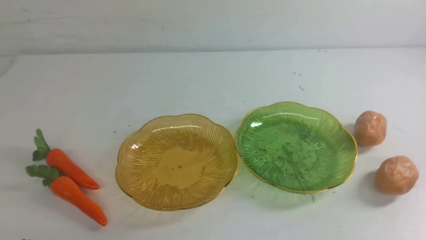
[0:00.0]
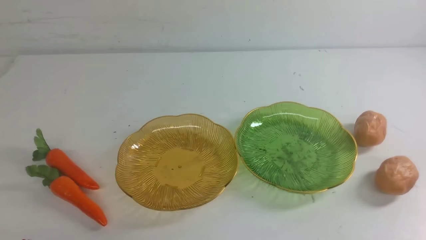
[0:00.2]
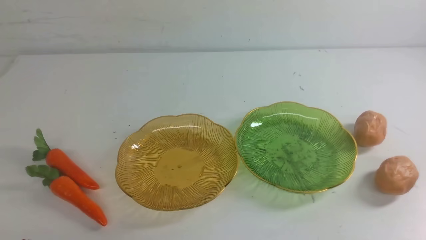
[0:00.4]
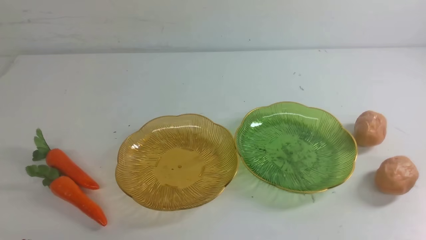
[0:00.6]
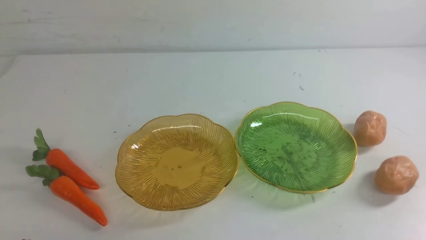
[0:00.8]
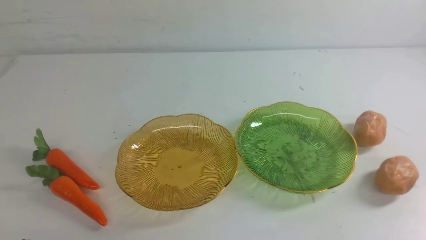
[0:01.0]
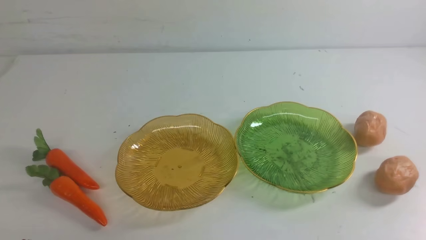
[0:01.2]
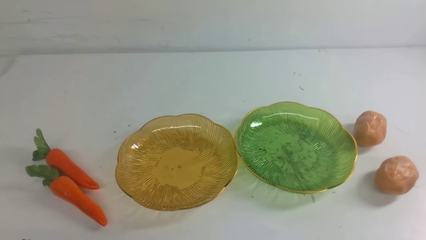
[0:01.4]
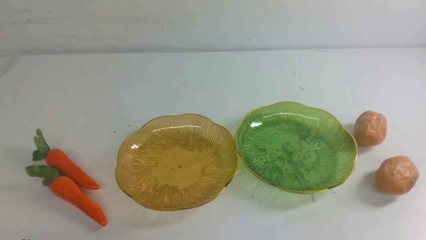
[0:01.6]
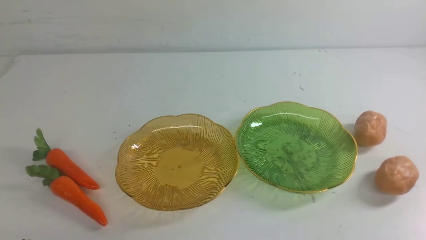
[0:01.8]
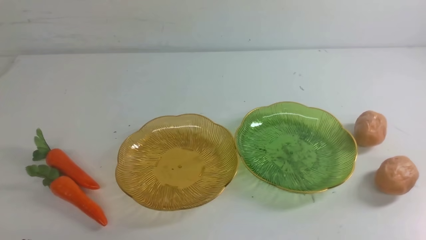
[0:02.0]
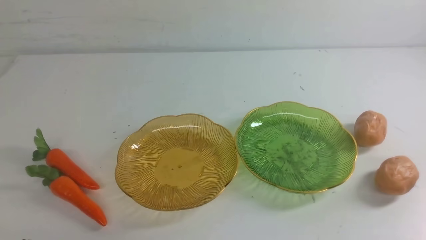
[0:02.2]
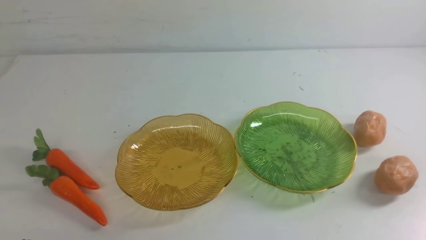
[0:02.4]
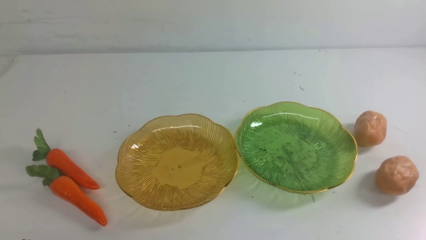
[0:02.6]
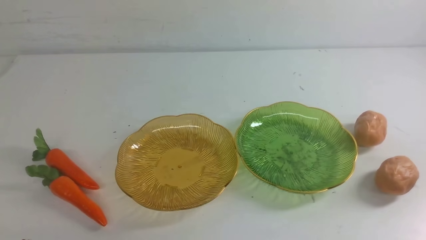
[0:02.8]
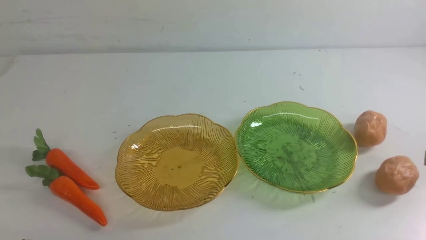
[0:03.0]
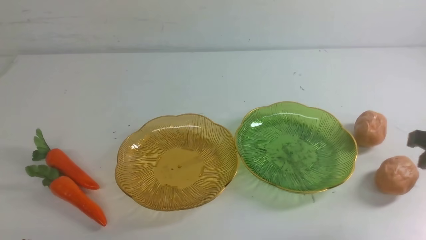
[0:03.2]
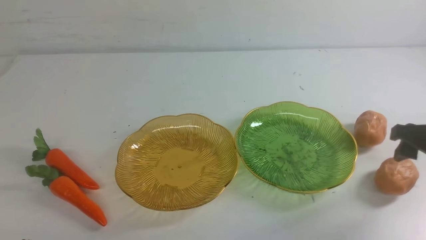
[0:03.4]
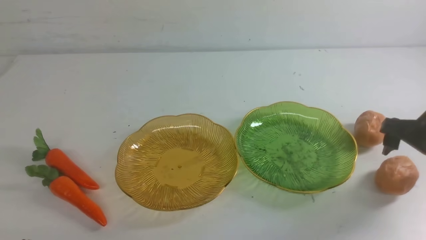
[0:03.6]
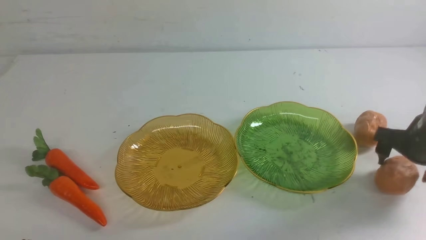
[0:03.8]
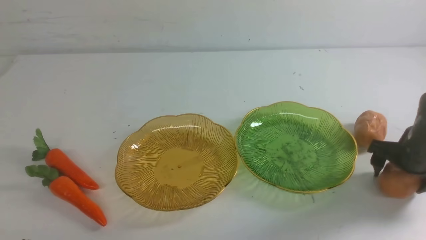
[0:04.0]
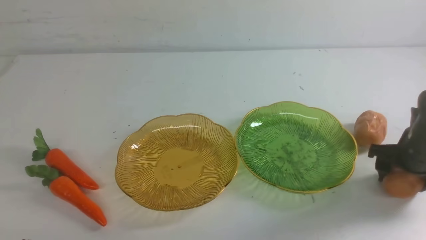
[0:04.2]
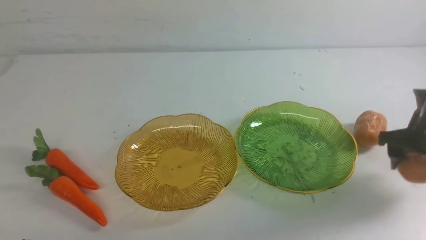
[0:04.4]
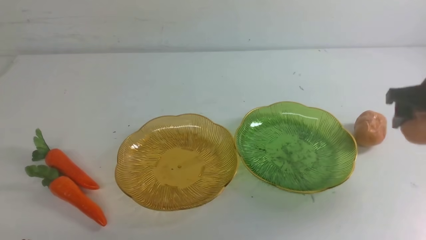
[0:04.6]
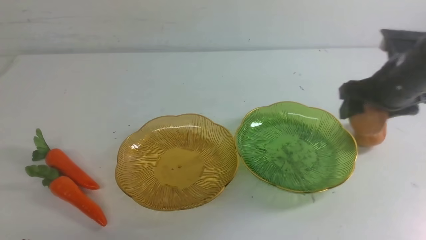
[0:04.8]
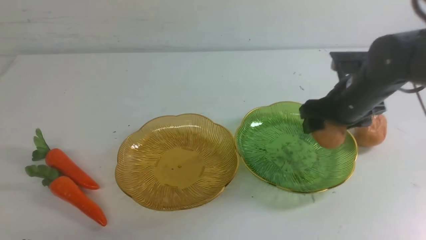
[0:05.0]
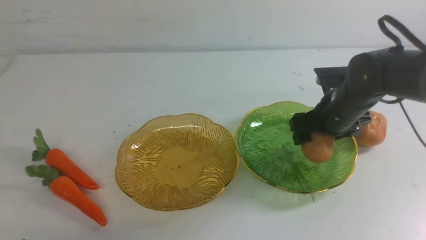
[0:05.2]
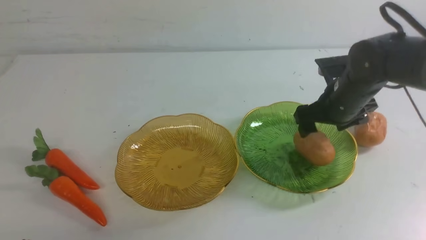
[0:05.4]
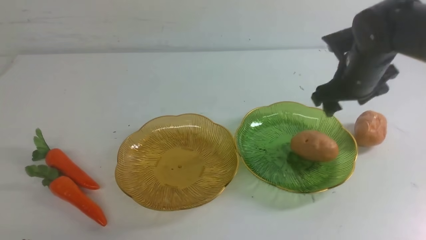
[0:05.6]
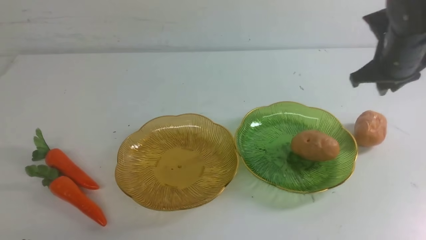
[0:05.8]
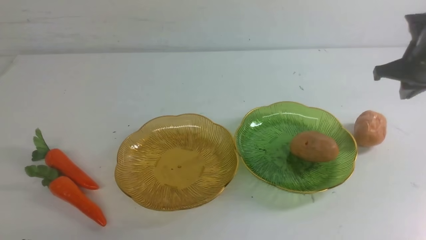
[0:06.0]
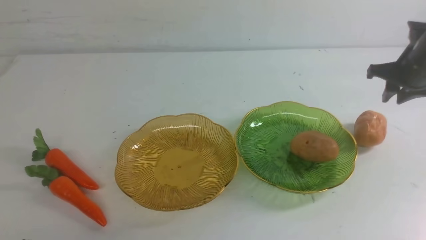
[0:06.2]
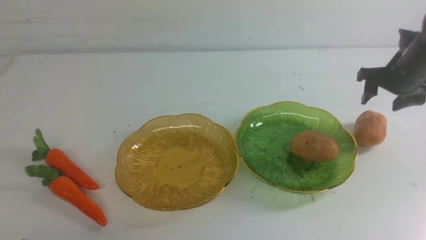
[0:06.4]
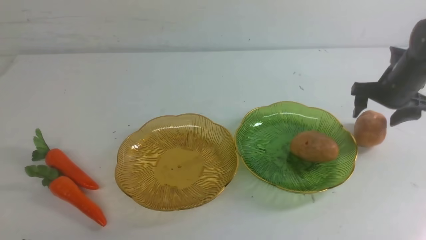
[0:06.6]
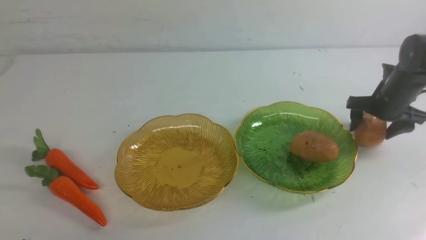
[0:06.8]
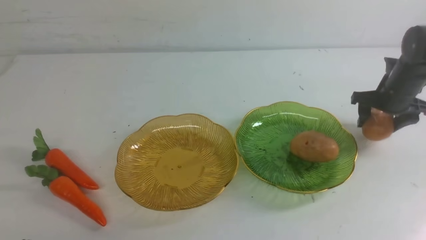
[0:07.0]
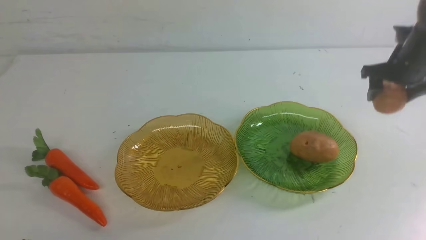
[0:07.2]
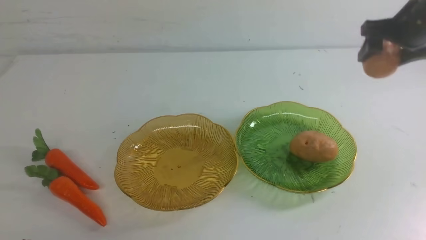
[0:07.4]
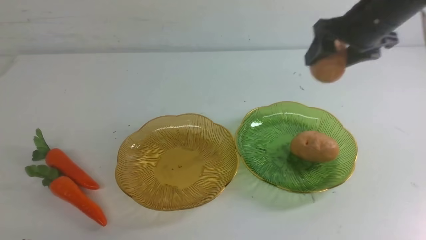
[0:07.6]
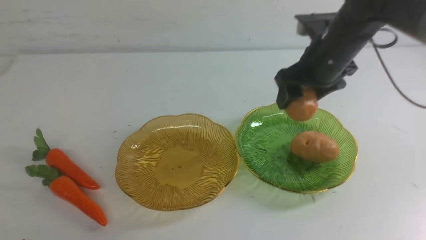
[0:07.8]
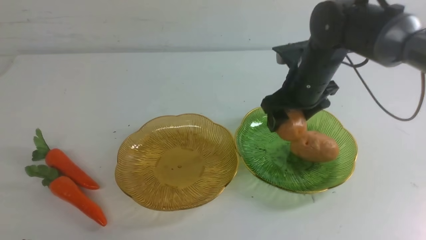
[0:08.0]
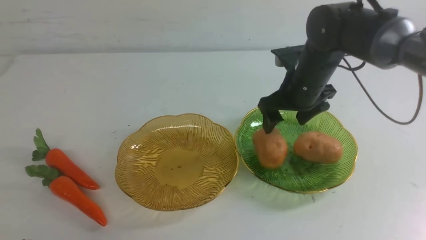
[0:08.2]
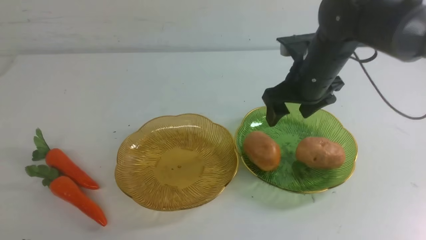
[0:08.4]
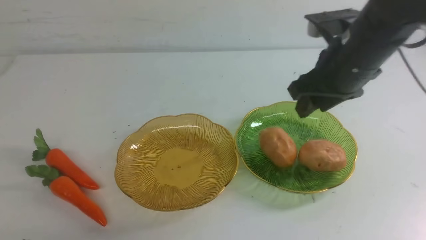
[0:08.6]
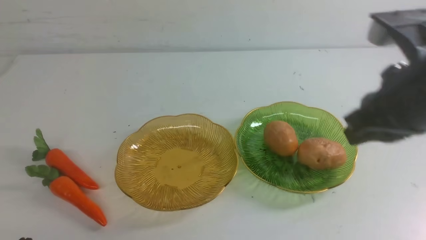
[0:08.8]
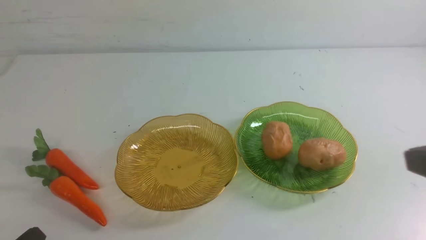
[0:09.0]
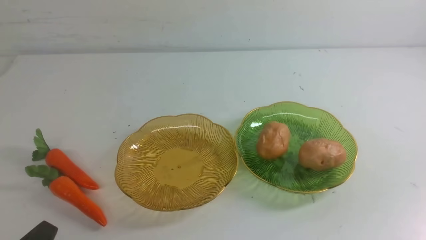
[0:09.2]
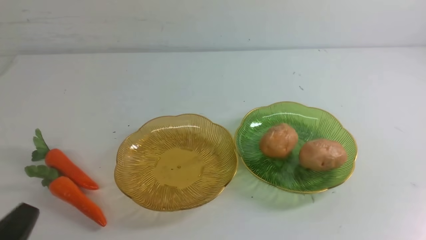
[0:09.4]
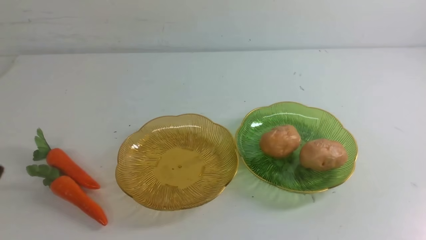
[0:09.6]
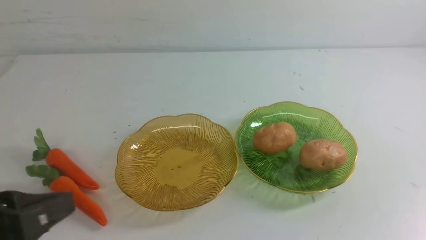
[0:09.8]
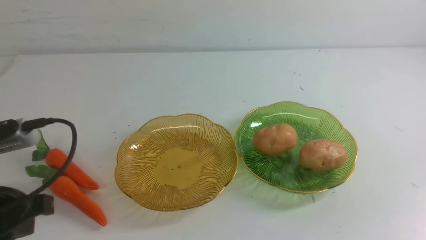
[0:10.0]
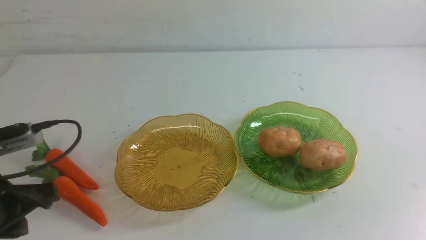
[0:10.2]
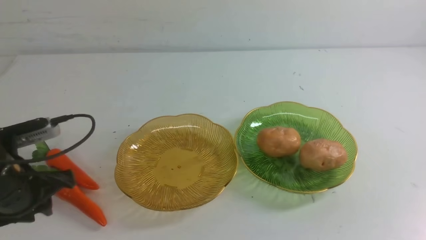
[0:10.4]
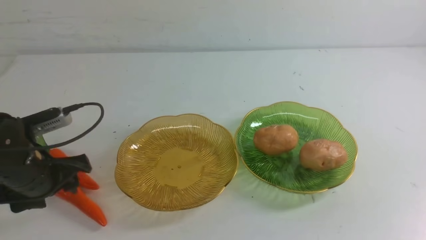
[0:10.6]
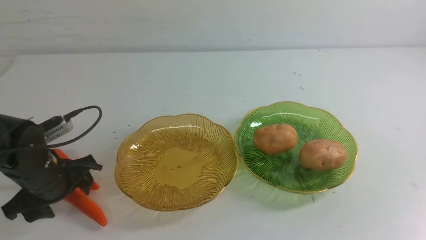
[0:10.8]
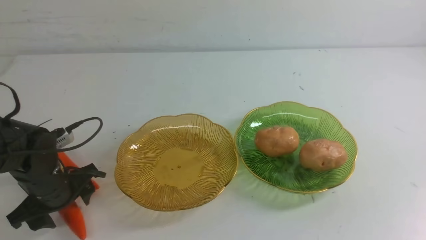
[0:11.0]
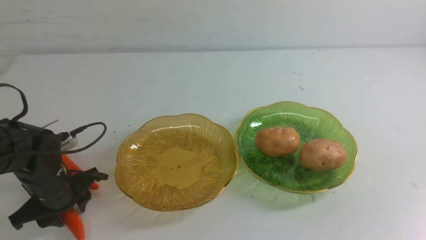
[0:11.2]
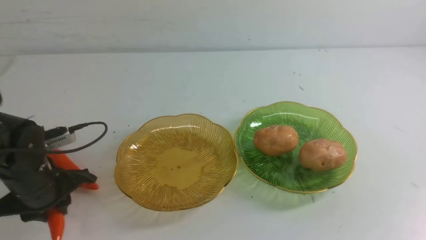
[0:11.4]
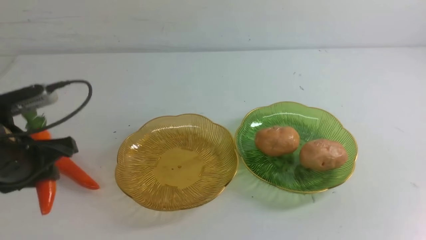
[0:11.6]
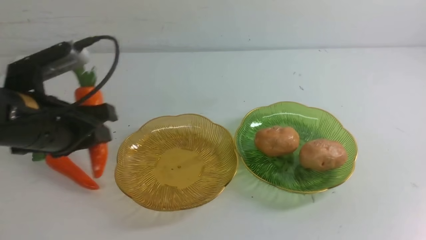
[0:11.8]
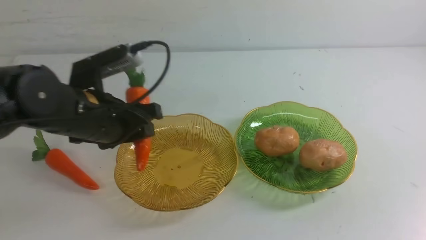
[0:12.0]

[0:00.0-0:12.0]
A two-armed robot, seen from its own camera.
Step, 0:00.0 to 0:05.2: Grab a potato with your right arm and put it on the right plate.
Step, 0:05.6 to 0:08.2: Grab a potato with your right arm and put it on the right plate.
0:03.0 to 0:04.4: The right gripper goes approximately 15 cm forward, and opens its fingers.
0:04.4 to 0:06.0: The right gripper shifts approximately 10 cm forward, goes to the left and returns, about 10 cm each way, and closes, then opens again.
0:06.0 to 0:07.6: The right gripper travels to the left by roughly 15 cm.
0:07.6 to 0:09.0: The right gripper heads backward, covering approximately 30 cm, and closes up.
0:09.0 to 0:10.4: The left gripper heads forward, covering approximately 15 cm, and opens; the right gripper moves approximately 5 cm.
0:10.4 to 0:12.0: The left gripper moves to the right and forward, about 10 cm, travels downward and back again, approximately 10 cm each way, and opens and closes again.

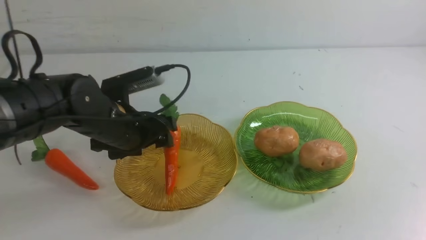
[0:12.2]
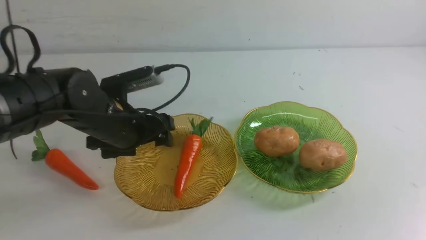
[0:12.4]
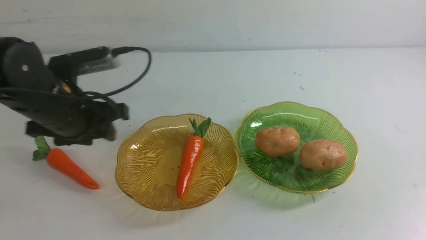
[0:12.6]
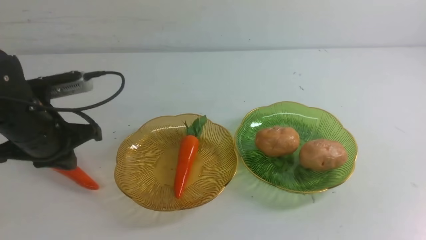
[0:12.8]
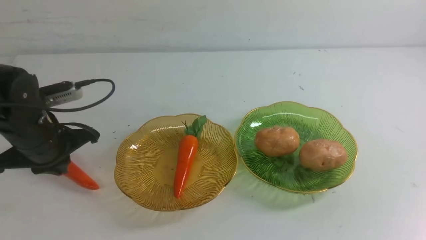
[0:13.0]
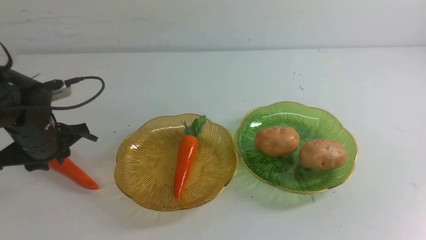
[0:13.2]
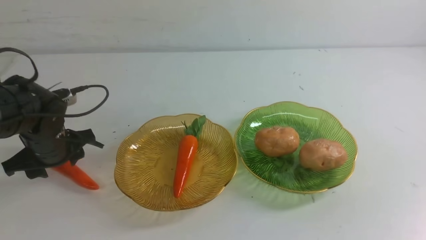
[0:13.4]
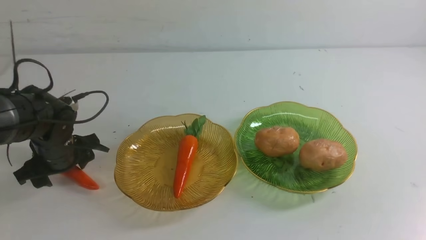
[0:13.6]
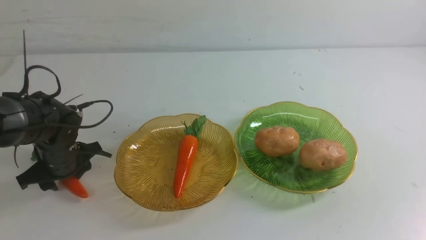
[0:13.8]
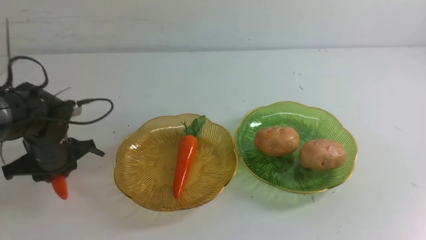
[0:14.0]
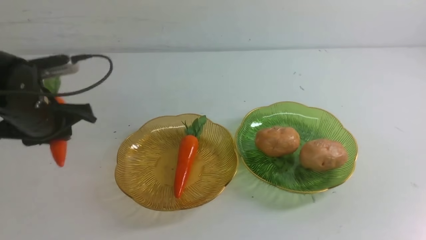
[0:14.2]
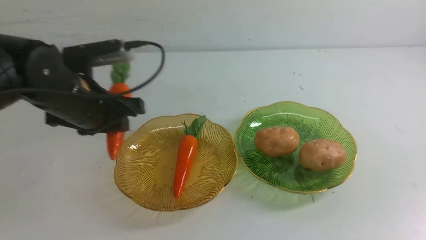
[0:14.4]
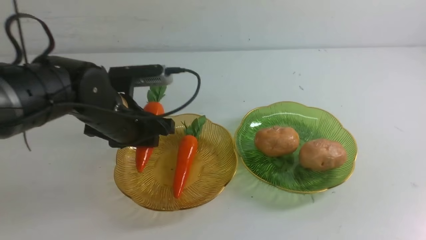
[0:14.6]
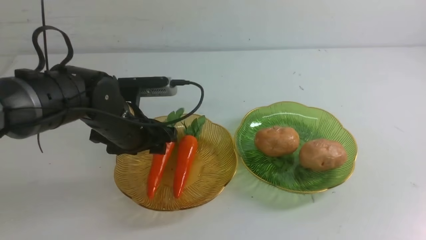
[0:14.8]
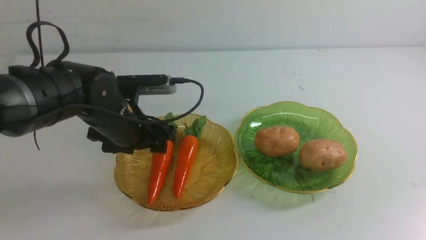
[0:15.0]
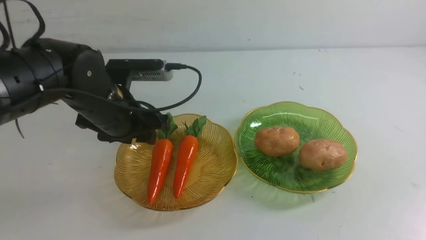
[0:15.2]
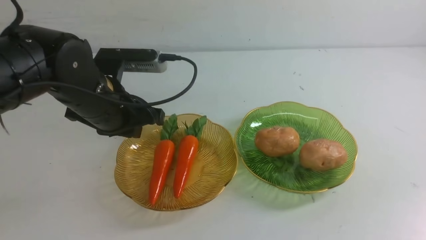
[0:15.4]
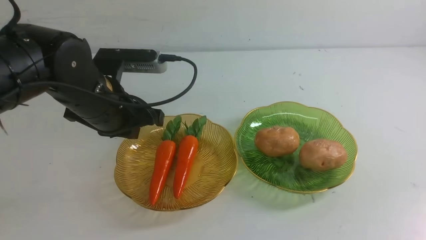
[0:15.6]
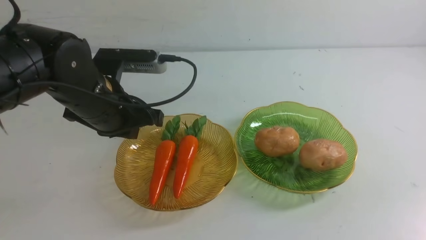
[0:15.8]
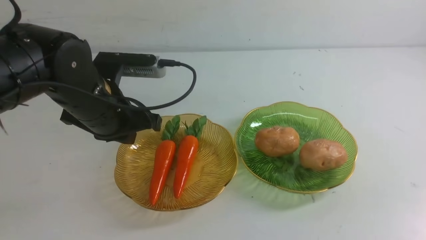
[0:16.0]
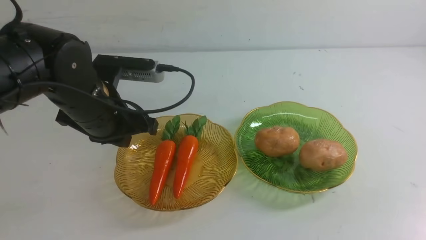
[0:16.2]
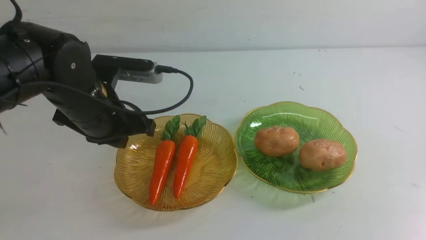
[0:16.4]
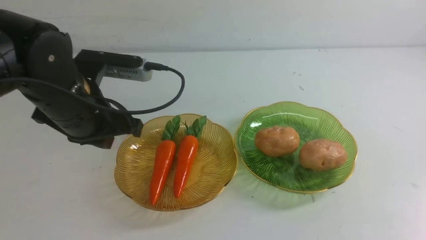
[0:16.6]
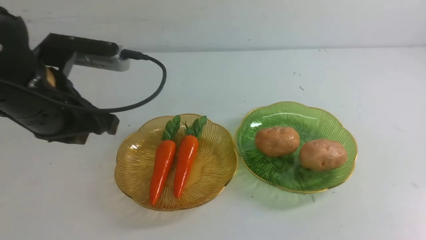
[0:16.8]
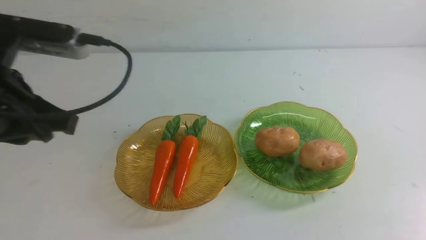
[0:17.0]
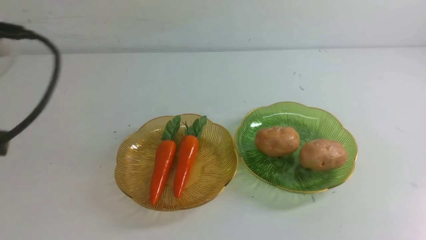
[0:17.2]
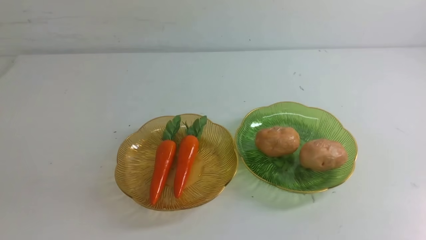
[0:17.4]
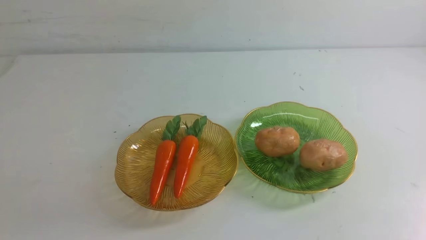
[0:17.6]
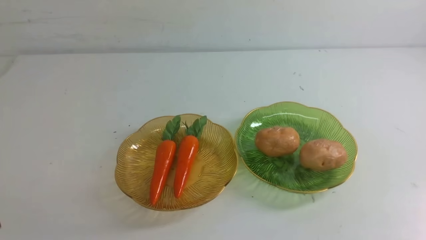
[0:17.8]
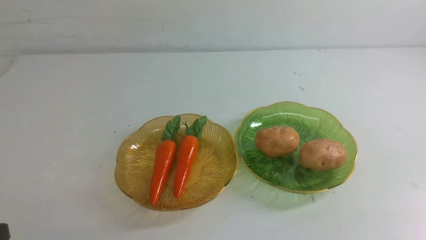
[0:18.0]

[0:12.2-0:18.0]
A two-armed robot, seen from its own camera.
Step, 0:12.2 to 0:14.8: use the left arm to grab a carrot and put it into the left plate.
0:12.2 to 0:13.6: The left gripper travels to the left and downward by about 15 cm, and closes, then reopens.
0:13.6 to 0:15.0: The left gripper goes roughly 15 cm to the right and upward, and closes, then reopens.
0:15.0 to 0:16.6: The right gripper heads downward, covering about 15 cm, while the left gripper travels upward, backward and to the left by roughly 15 cm, and closes.
0:16.6 to 0:18.0: The left gripper travels backward and downward by about 20 cm.
